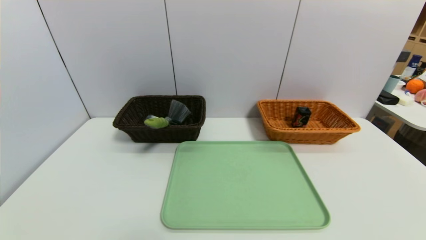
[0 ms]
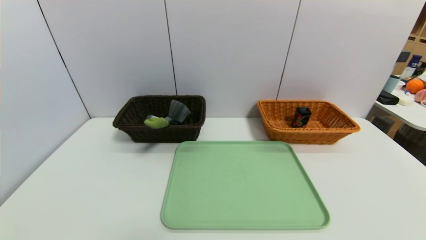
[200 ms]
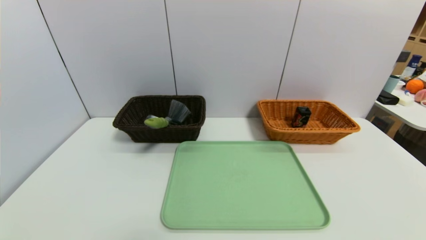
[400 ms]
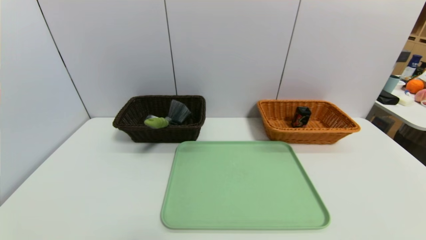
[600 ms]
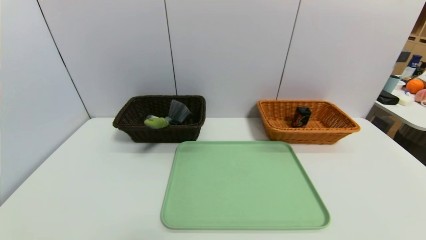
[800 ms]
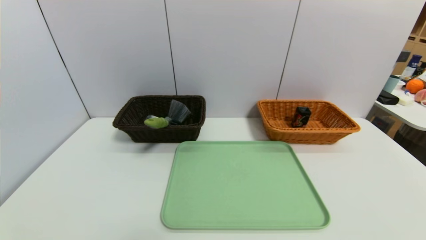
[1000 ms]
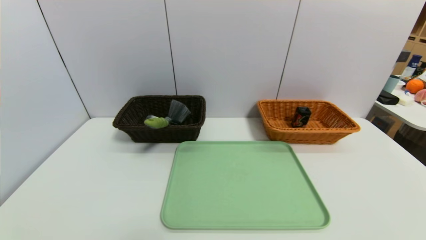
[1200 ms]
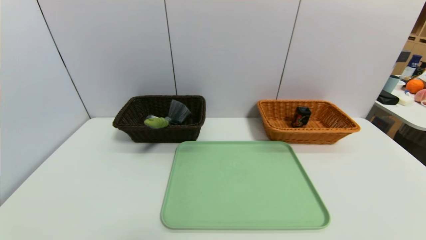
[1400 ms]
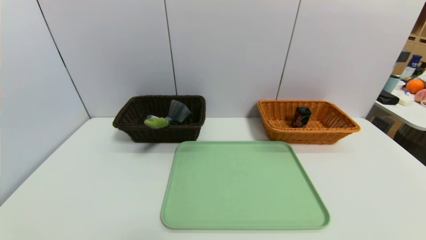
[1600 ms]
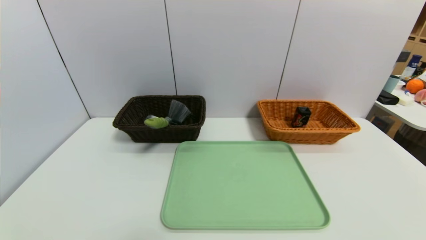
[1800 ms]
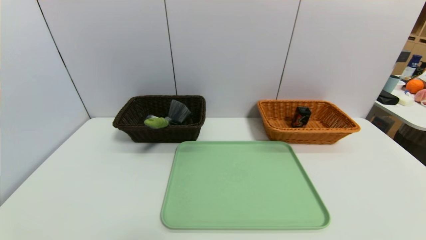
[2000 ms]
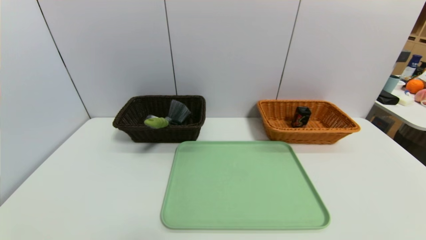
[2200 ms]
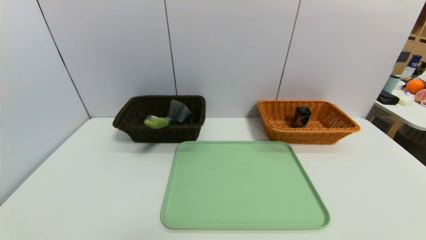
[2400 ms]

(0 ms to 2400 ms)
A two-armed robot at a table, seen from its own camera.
Task of the whole recording: place the food in the right basket with the right gripper, and place the non food items in the left basket with the left gripper.
1200 ms - 2400 ms: Neither gripper changes place.

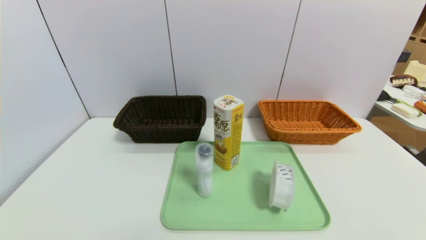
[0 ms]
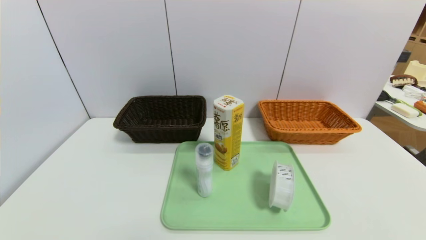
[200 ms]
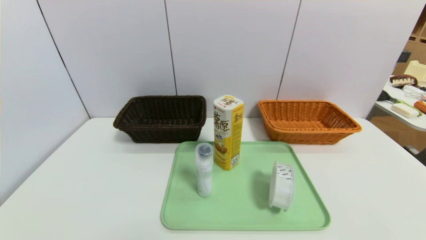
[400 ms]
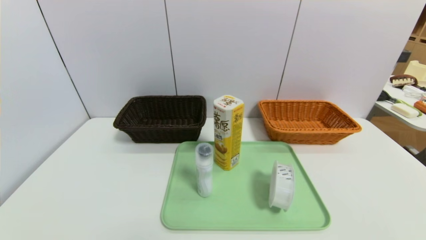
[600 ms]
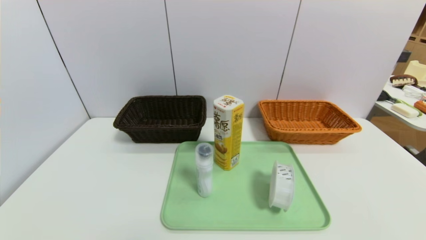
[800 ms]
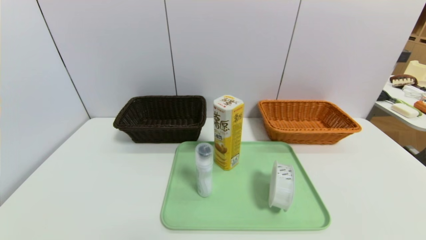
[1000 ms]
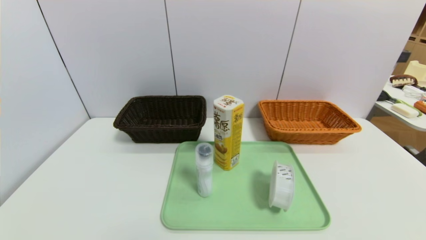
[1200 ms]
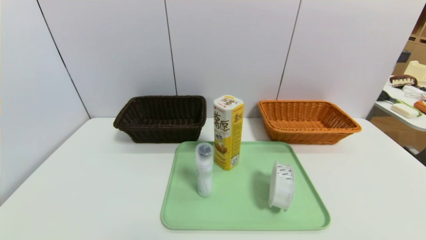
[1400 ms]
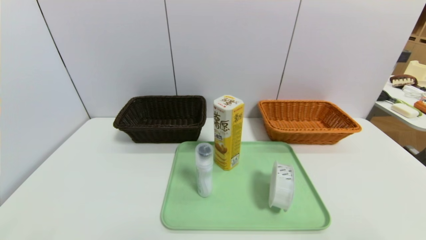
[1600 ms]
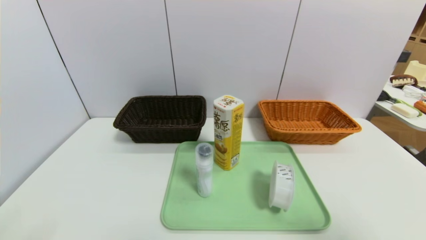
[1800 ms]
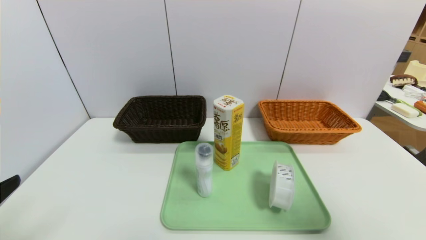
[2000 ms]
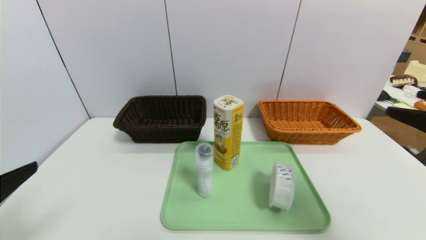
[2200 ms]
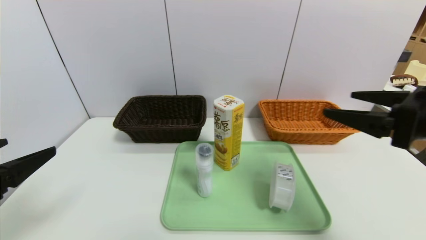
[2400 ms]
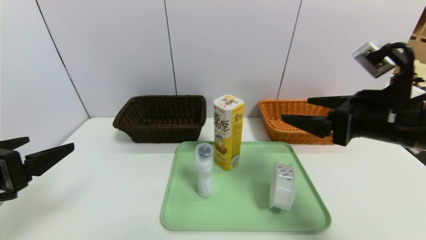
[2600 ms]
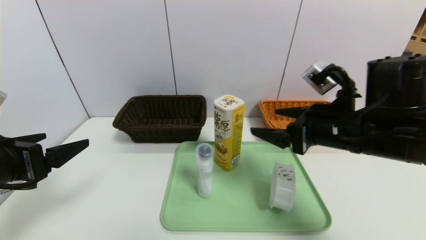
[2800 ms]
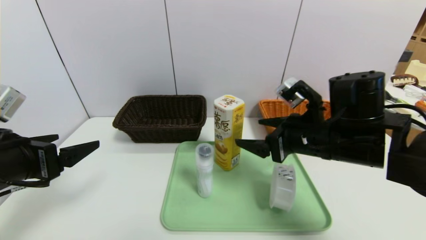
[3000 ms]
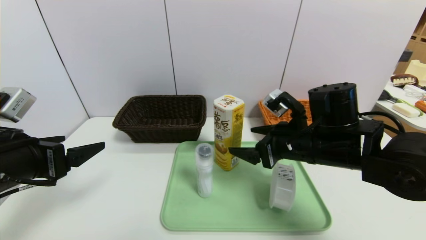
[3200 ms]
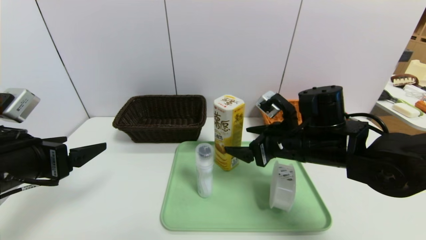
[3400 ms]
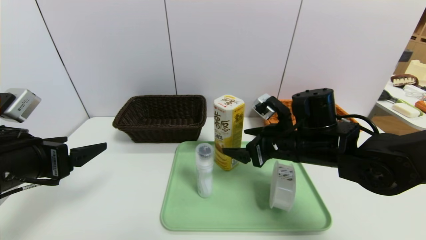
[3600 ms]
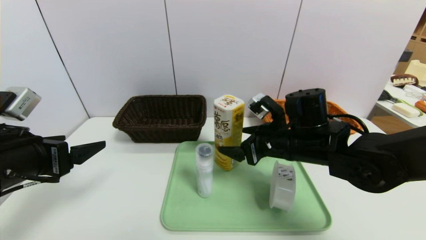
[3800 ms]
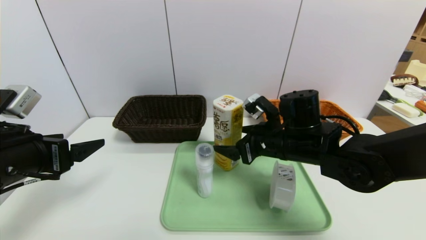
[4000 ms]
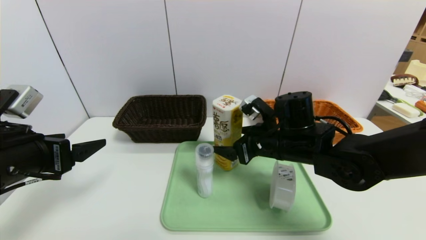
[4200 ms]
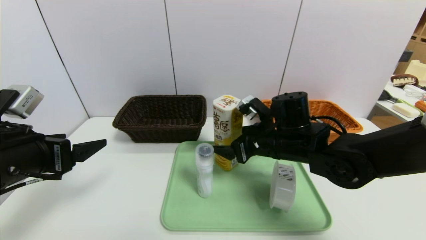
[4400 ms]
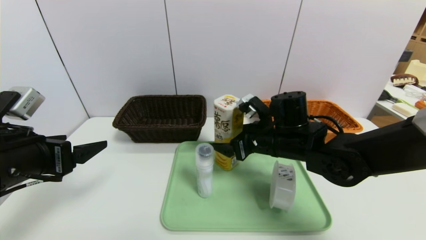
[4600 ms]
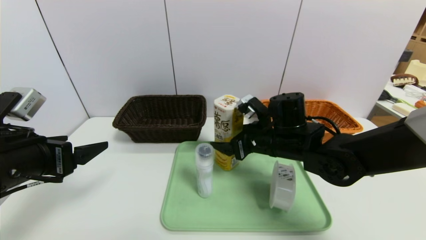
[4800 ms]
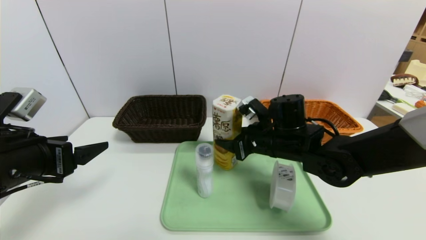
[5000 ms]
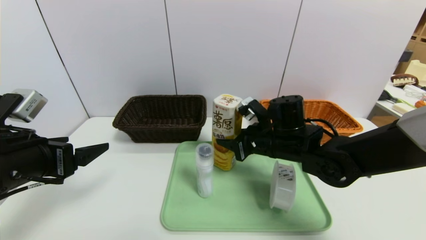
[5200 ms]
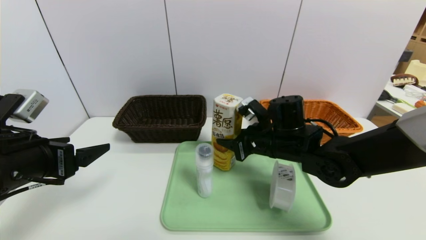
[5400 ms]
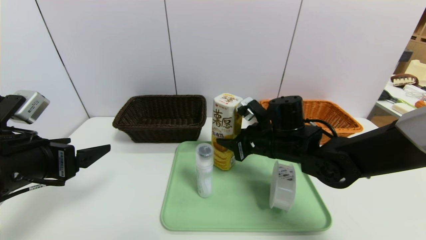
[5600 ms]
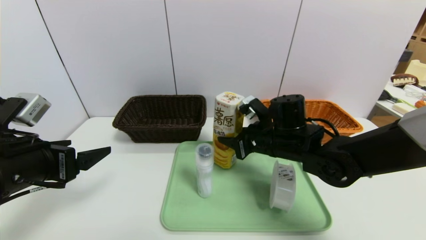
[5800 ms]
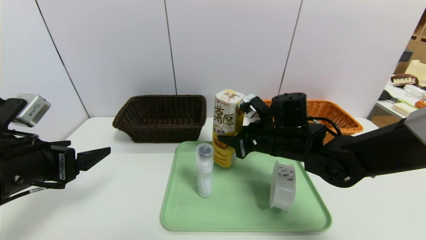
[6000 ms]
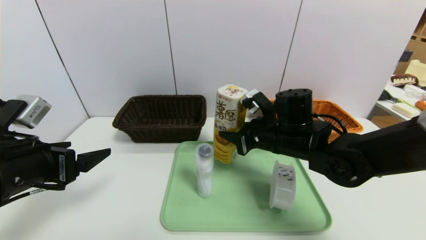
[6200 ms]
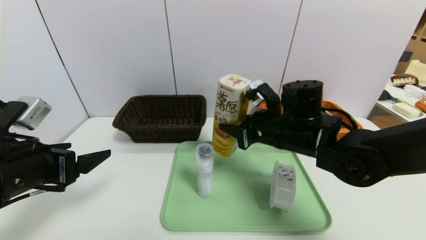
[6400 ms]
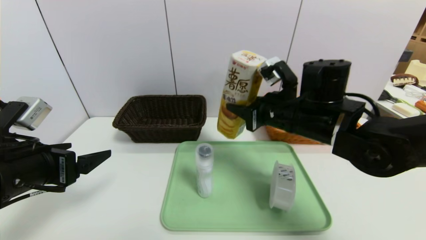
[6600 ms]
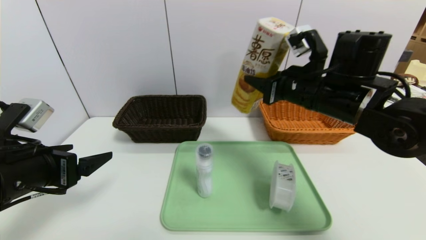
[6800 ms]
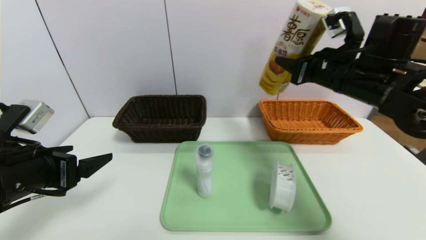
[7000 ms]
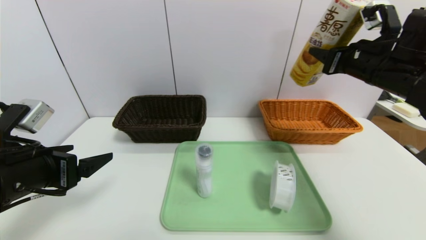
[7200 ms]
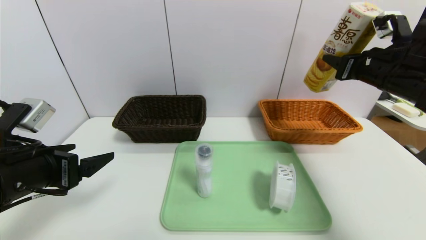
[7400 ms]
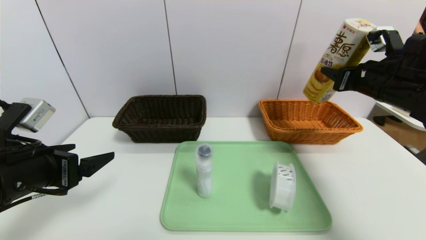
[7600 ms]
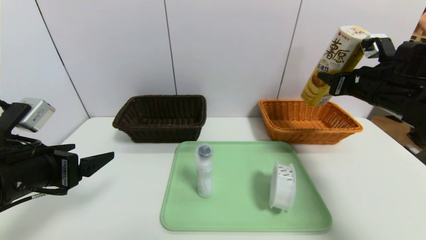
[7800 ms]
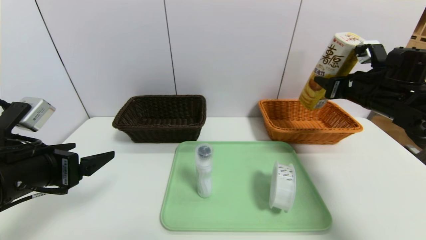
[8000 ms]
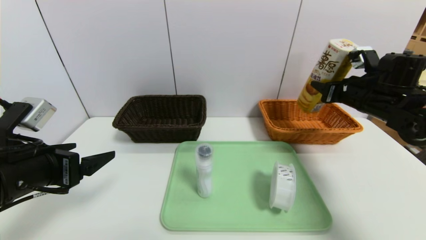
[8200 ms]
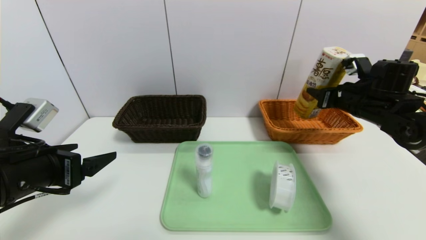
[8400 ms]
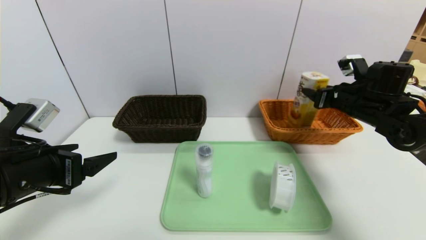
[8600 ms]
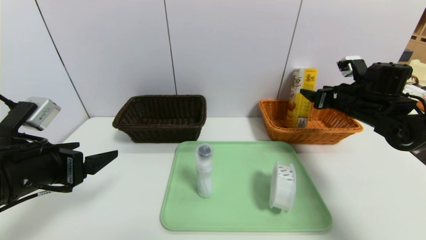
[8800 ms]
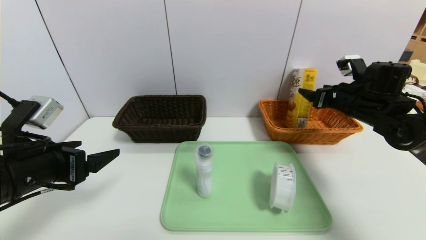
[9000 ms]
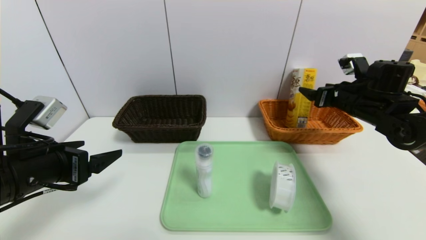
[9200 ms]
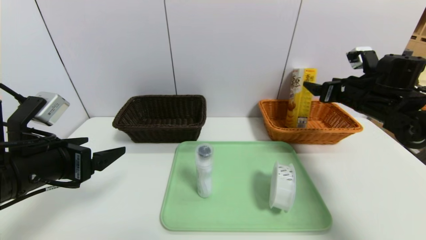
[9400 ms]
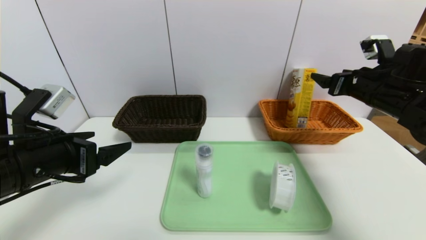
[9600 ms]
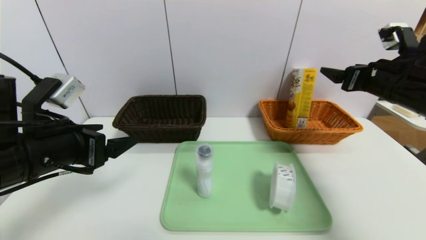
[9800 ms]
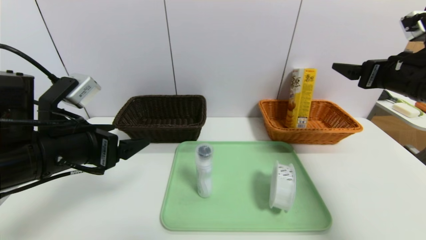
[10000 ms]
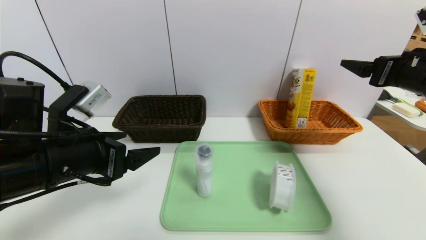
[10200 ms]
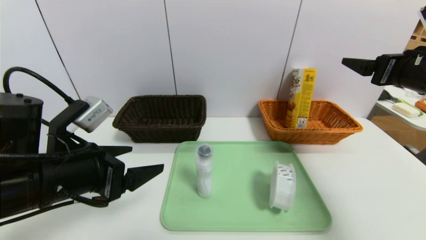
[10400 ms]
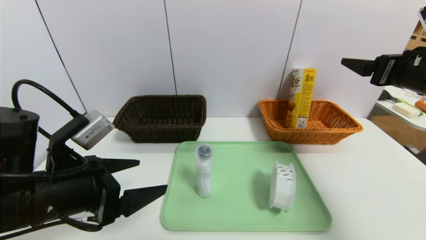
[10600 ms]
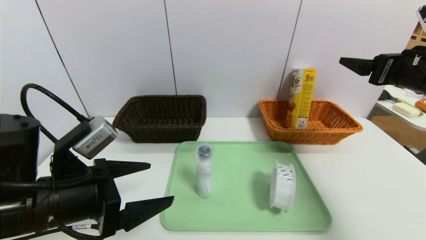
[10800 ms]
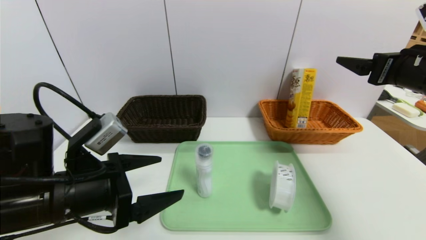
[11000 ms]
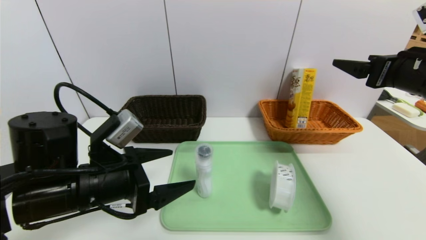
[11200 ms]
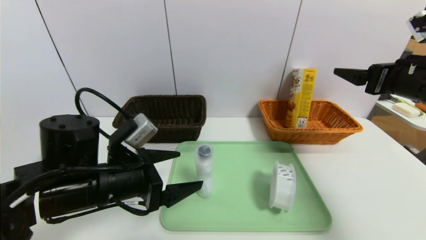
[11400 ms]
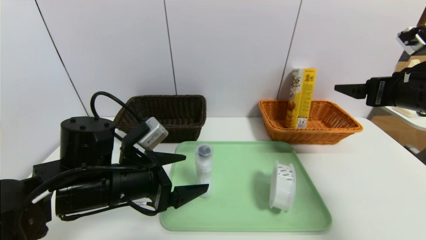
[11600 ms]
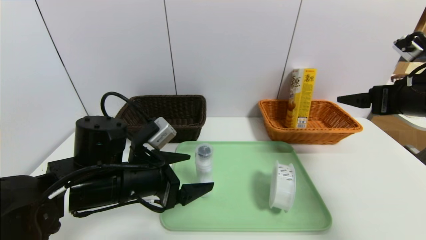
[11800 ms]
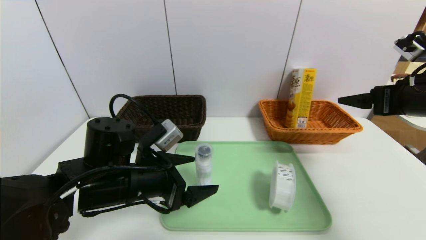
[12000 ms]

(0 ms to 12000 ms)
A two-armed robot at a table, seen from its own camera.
Task of the whole recording: place the food in the right basket with the right gripper, and place the non food items in the left basket with the left gripper.
Step, 0 ms - 8800 ms: Grasp the potato chips and put it in the right basket.
1600 ms - 3000 ms: The right gripper heads forward and to the left, covering roughly 30 cm. Meanwhile the left gripper heads forward, covering approximately 15 cm.
3000 ms - 4400 ms: The right gripper heads forward, covering roughly 5 cm.
4400 ms - 6000 ms: The right gripper closes up.
6000 ms - 7600 ms: The right gripper heads to the right and upward, covering approximately 20 cm.
7600 ms - 9000 ms: The right gripper shifts roughly 5 cm downward, and opens up.
9000 ms - 10400 ms: The right gripper is displaced backward and upward by about 15 cm; the left gripper moves to the right, some 5 cm.
10400 ms - 12000 ms: The left gripper goes roughly 10 cm to the right, downward and forward.

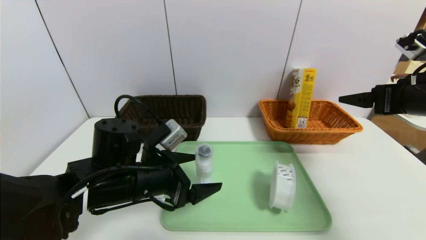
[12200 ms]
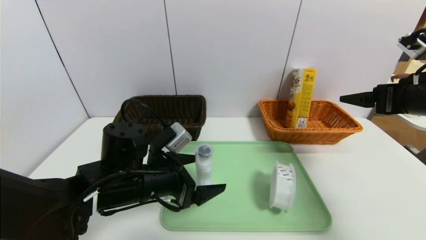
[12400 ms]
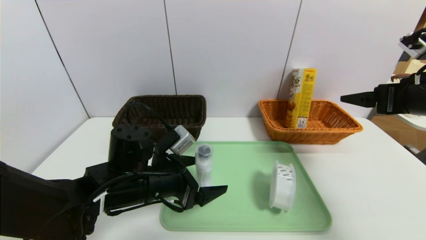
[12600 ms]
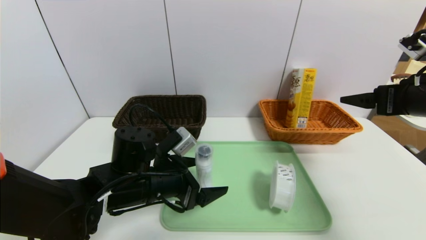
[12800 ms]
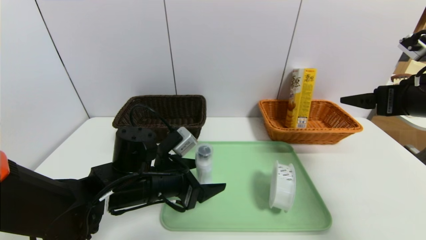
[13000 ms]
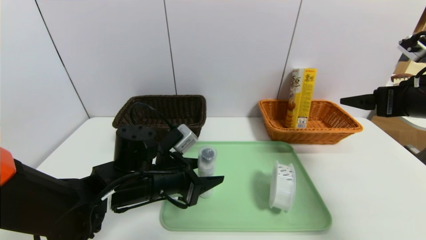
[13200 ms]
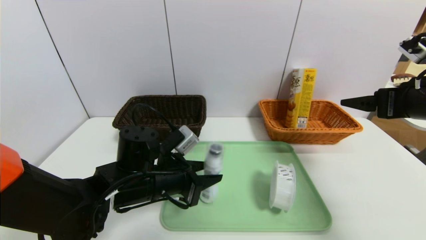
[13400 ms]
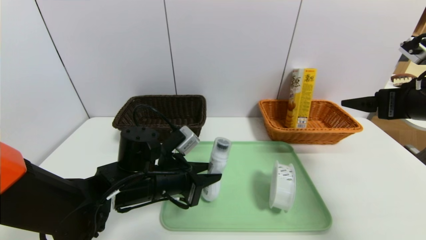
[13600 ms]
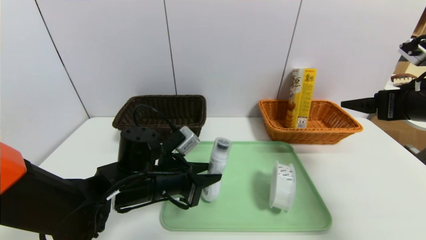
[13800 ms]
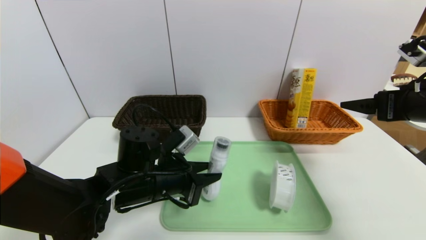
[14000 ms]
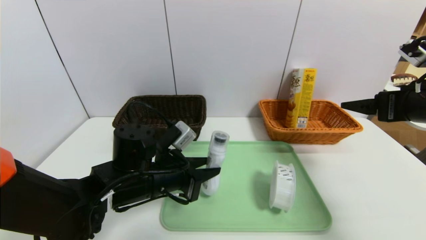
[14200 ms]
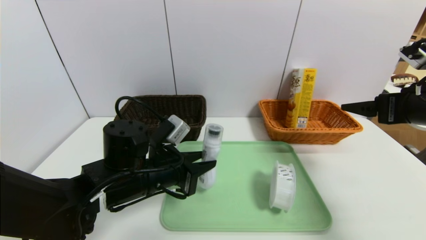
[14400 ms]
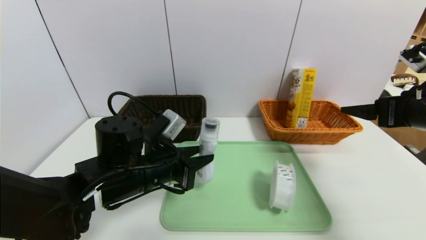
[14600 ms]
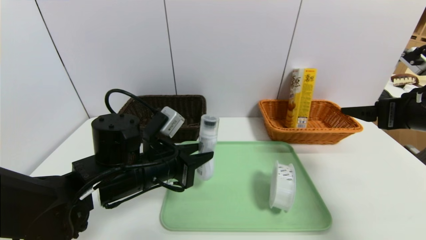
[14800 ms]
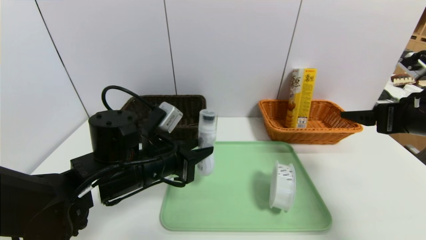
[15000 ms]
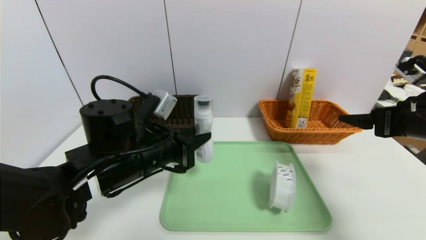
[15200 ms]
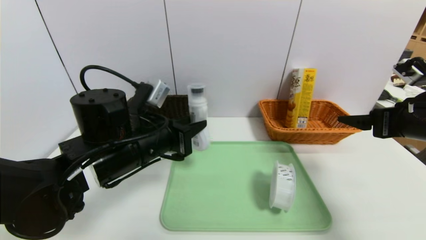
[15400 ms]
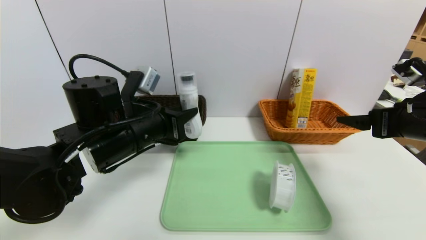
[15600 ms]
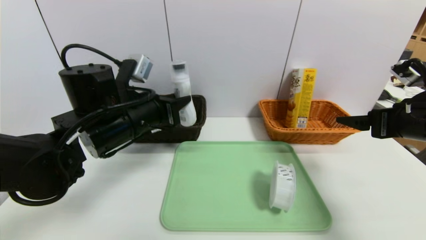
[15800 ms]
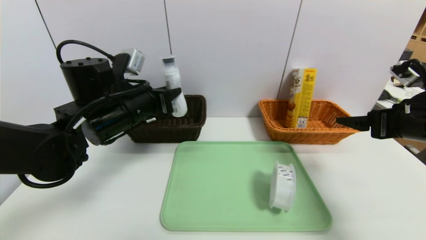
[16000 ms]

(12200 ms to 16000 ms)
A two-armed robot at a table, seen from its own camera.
Task of the whole recording: place the food in the right basket with the right gripper, and place the non food items in the left basket with the left gripper.
12200 ms - 13400 ms: The left gripper closes up.
13400 ms - 14800 ms: There are only small adjustments of the grippers.
14800 ms - 16000 ms: The left gripper moves upward and forward, about 10 cm.
